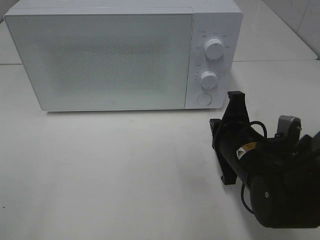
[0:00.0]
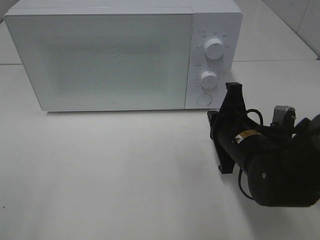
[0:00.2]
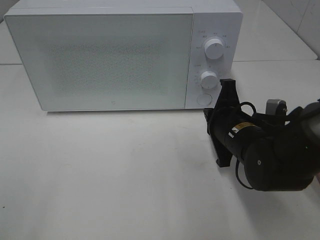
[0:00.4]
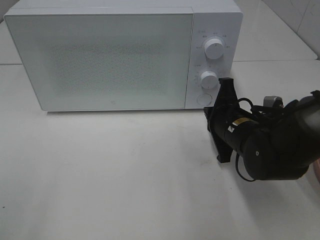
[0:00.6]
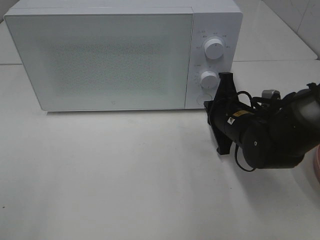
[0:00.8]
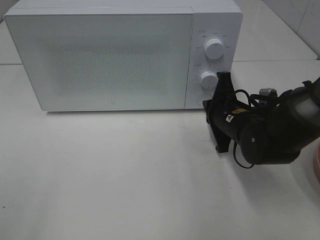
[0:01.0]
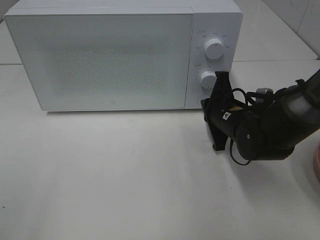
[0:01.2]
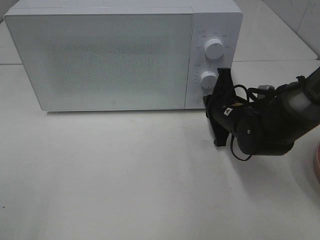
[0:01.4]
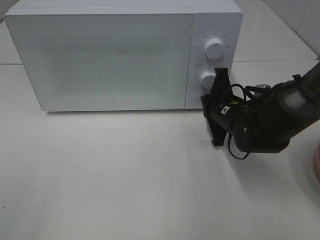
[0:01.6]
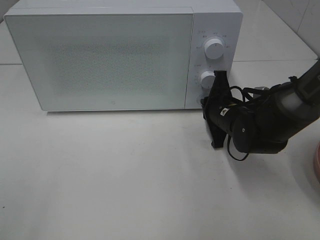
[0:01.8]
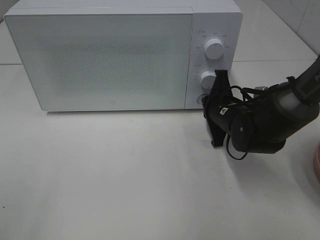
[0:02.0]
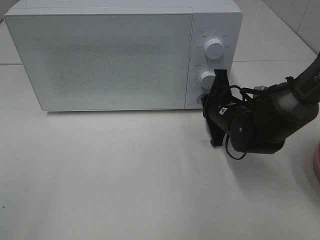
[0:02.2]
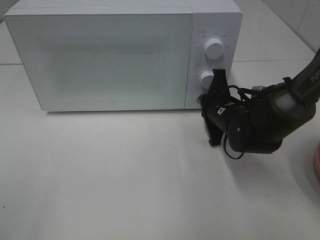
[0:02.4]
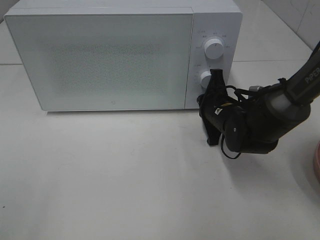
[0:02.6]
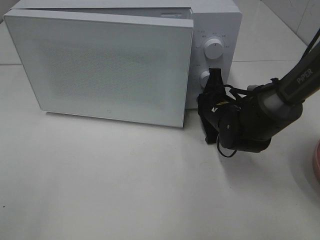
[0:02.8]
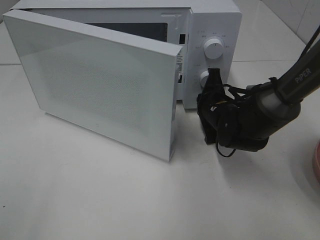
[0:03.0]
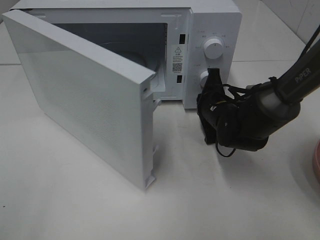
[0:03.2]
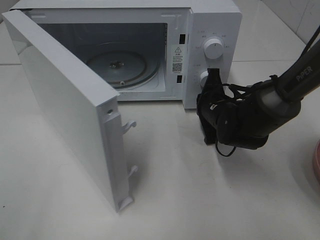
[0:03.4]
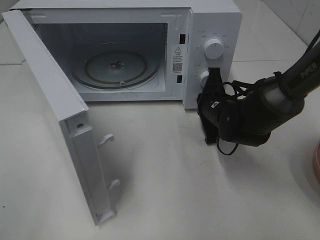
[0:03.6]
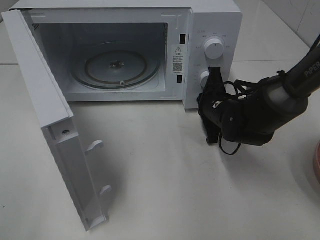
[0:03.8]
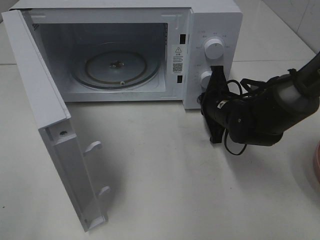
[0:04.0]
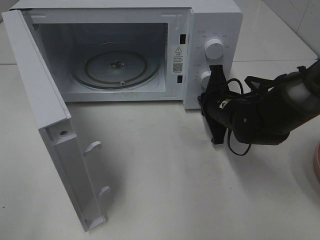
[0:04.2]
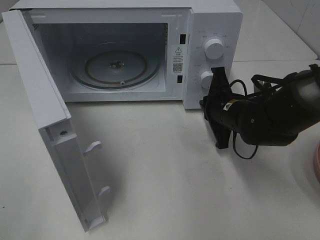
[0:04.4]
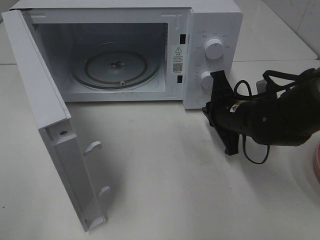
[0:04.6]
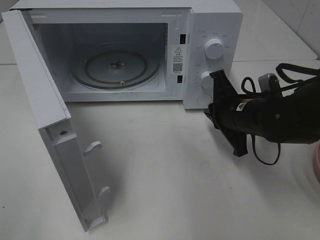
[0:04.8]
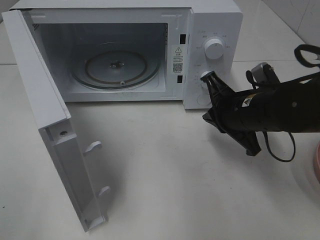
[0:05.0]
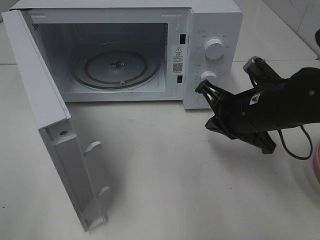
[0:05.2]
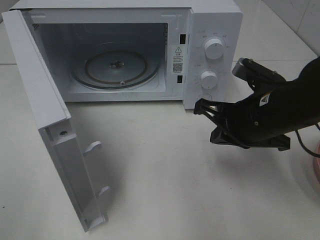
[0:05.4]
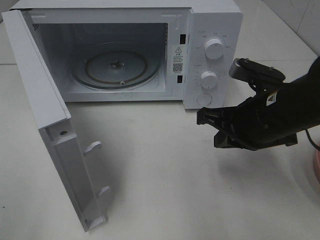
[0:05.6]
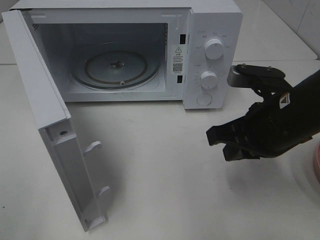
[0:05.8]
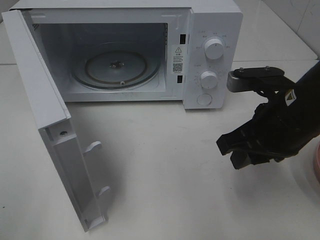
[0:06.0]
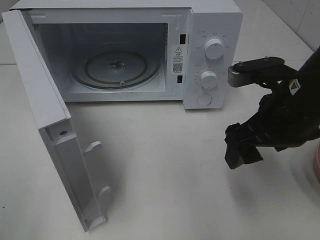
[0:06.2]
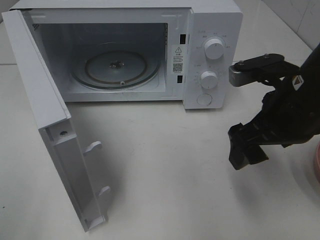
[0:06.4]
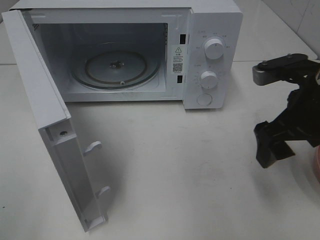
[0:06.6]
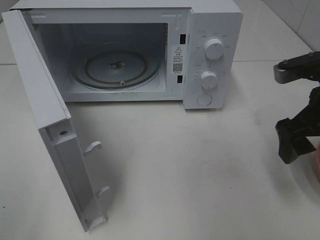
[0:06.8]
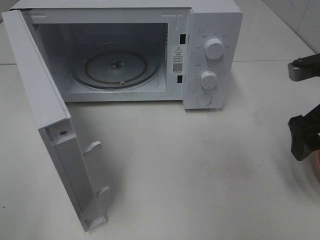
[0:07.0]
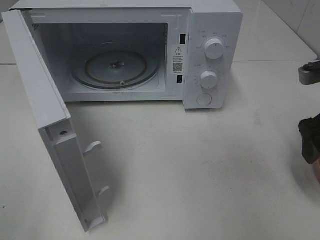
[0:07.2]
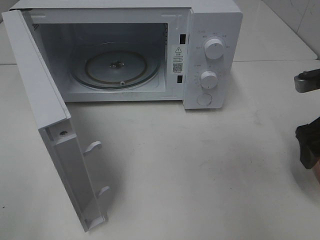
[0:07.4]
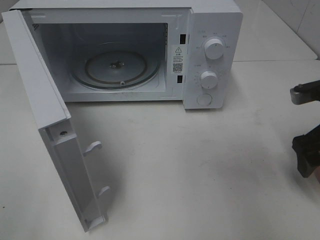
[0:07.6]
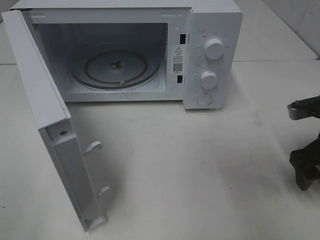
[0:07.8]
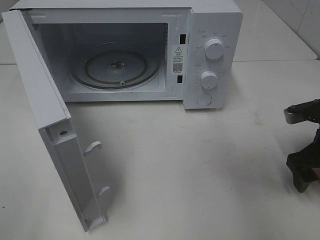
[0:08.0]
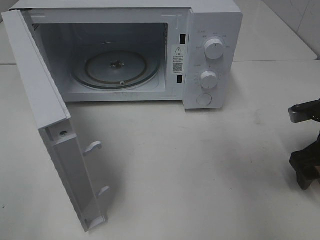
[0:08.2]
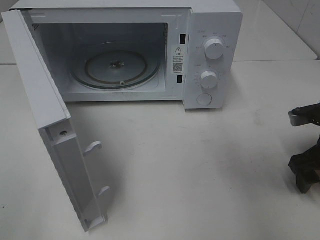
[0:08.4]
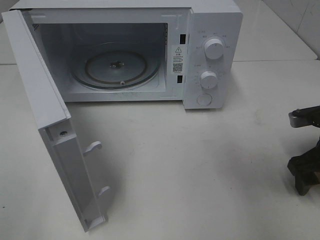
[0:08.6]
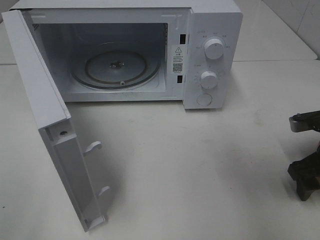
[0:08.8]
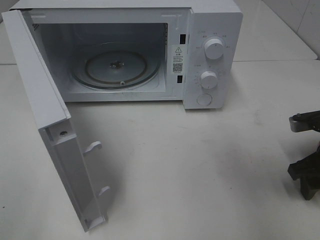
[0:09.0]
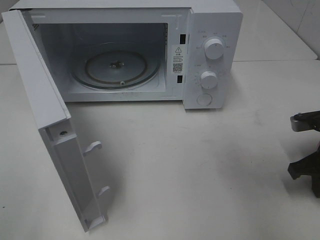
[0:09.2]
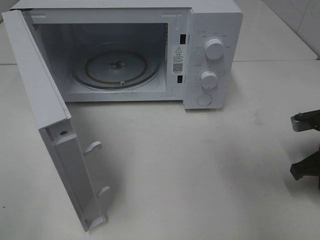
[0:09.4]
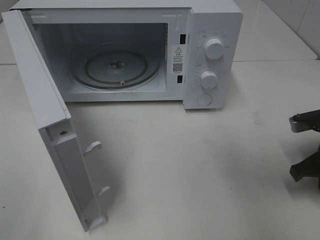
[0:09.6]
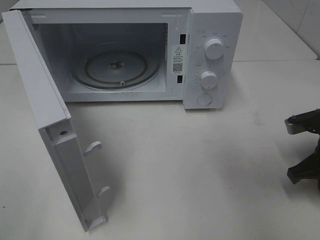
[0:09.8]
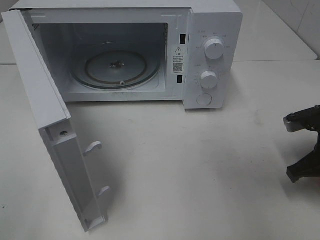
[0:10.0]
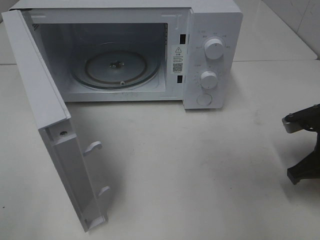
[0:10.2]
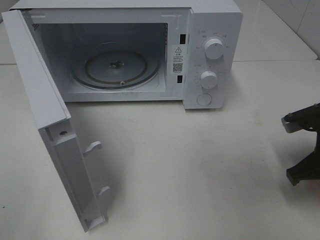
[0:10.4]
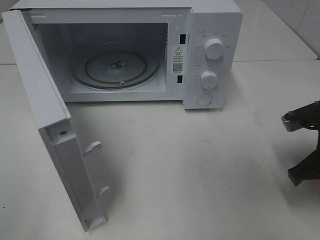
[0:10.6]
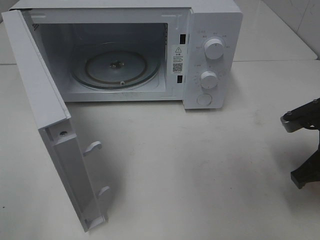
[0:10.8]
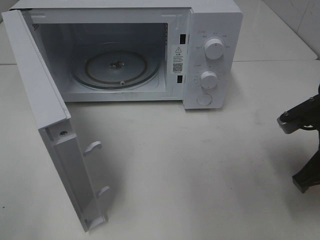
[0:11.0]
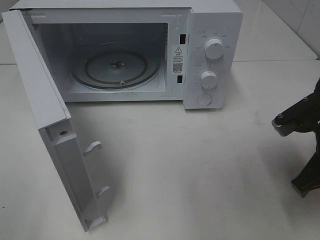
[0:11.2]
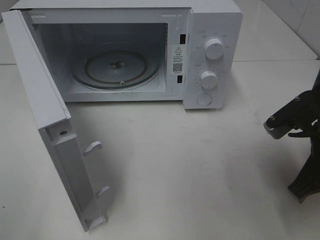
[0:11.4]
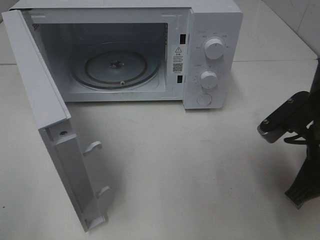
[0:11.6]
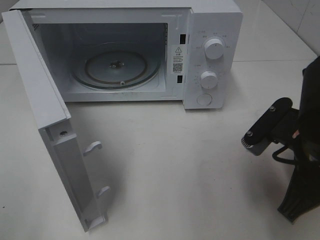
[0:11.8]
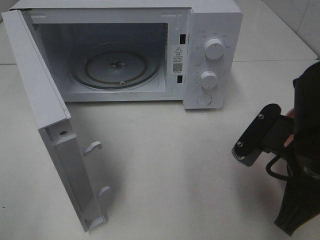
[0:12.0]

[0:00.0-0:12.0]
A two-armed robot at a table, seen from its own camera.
Task of the whole recording: Heat the burger.
Step, 0:00.0 to 0:04.4: Right hand: press the switch.
Step, 0:04.6 to 0:10.0: Right hand: grab the plate with the hamburger.
0:00.0 to 0:01.6: The right gripper moves forward, some 10 cm.
0:01.6 to 0:03.0: The grippers stay close to where they were, moving slightly.
0:04.4 to 0:06.0: The right gripper goes about 15 cm backward and upward, and opens its fingers.
0:06.0 to 0:07.6: The right gripper moves to the right, approximately 10 cm, and opens up.
0:07.6 to 0:09.0: The right gripper moves downward, roughly 5 cm.
0:09.0 to 0:10.4: The right gripper closes its fingers.
0:10.4 to 0:12.0: The right gripper travels to the left, backward and upward by approximately 15 cm.

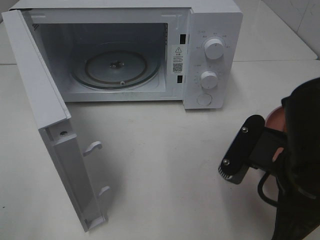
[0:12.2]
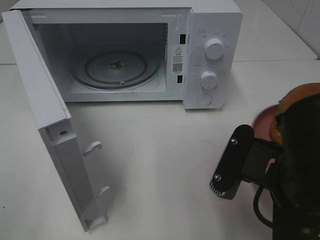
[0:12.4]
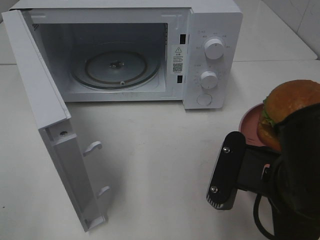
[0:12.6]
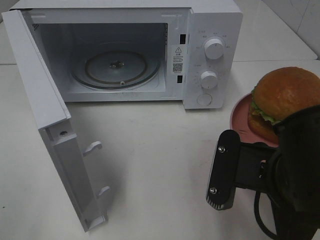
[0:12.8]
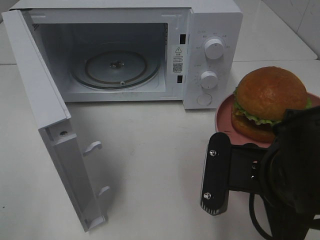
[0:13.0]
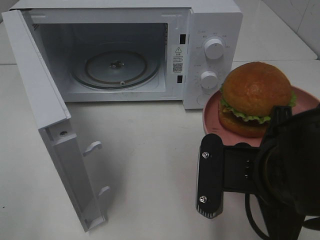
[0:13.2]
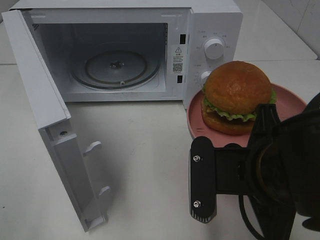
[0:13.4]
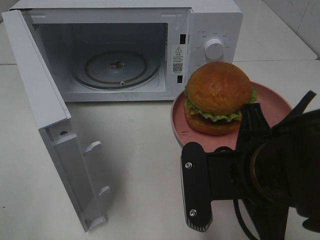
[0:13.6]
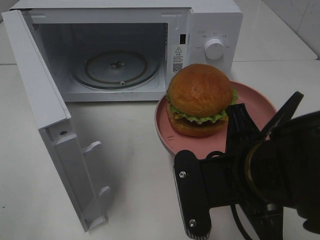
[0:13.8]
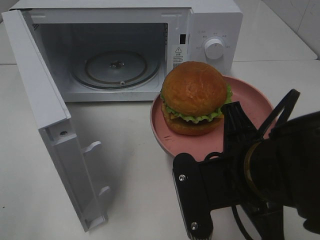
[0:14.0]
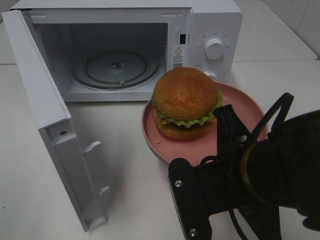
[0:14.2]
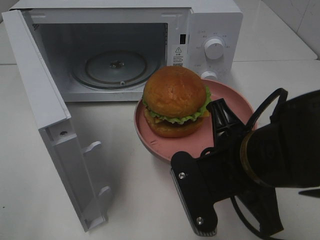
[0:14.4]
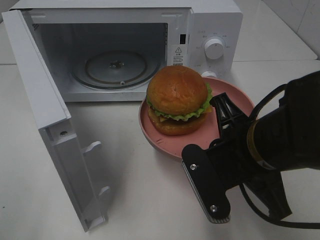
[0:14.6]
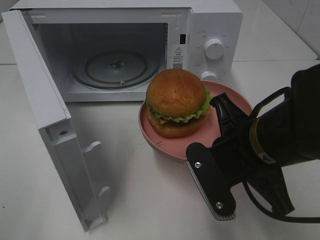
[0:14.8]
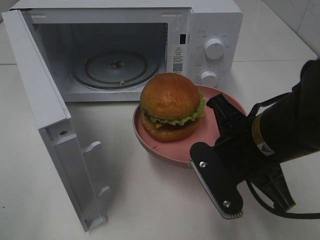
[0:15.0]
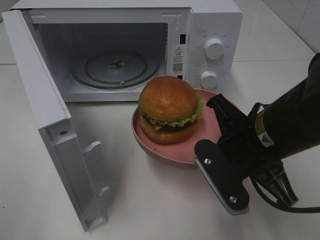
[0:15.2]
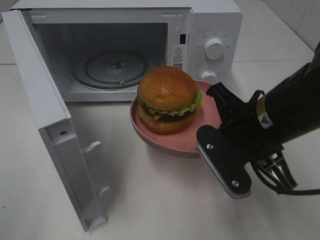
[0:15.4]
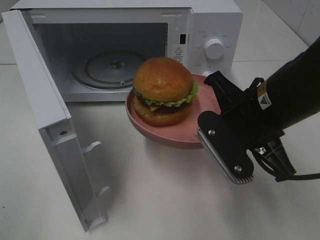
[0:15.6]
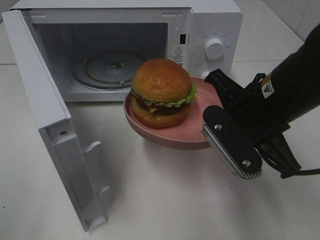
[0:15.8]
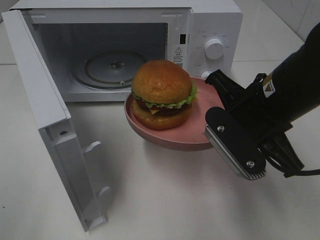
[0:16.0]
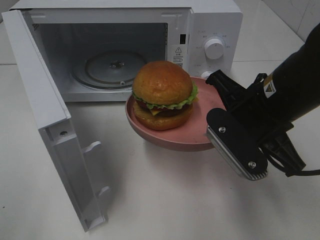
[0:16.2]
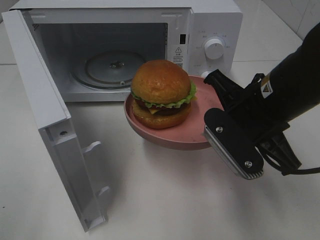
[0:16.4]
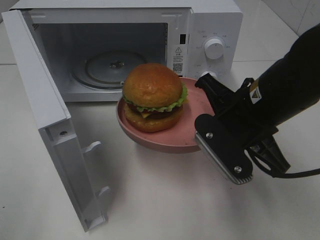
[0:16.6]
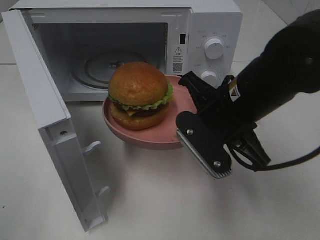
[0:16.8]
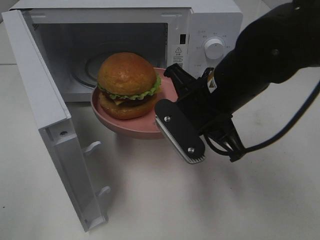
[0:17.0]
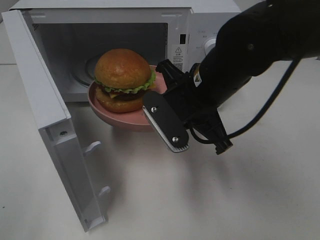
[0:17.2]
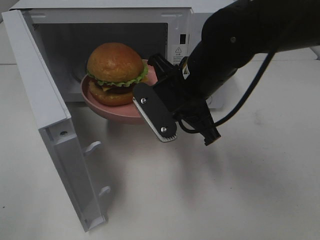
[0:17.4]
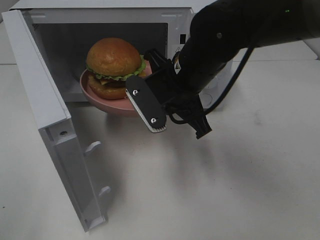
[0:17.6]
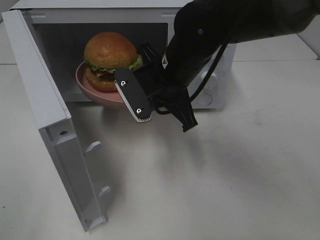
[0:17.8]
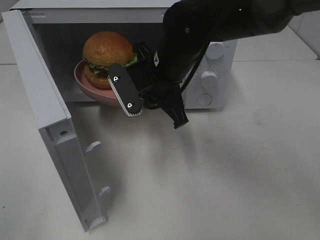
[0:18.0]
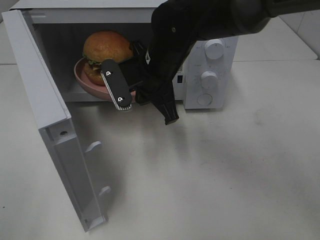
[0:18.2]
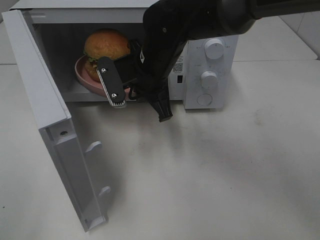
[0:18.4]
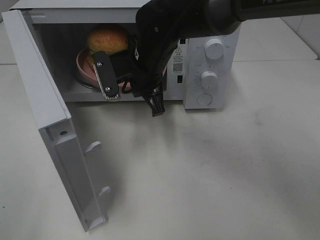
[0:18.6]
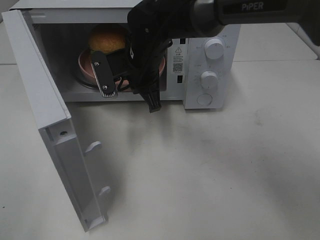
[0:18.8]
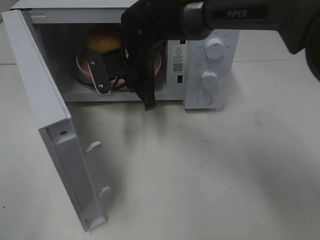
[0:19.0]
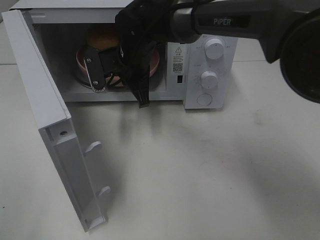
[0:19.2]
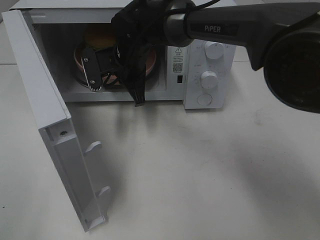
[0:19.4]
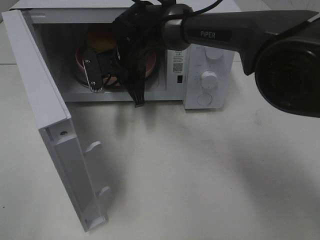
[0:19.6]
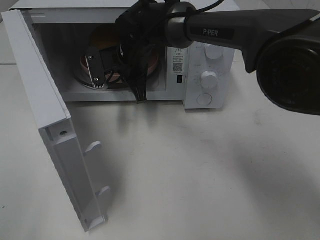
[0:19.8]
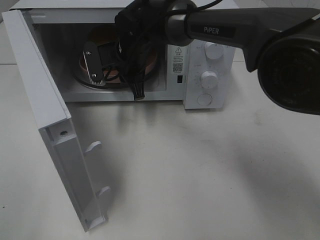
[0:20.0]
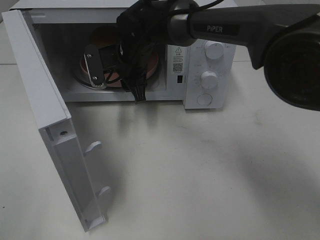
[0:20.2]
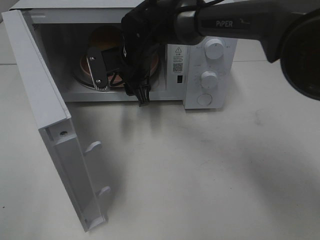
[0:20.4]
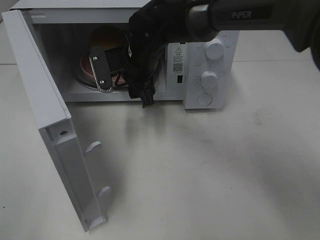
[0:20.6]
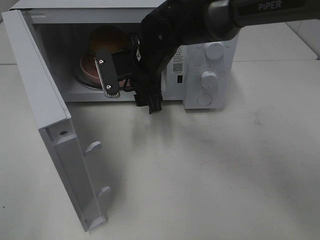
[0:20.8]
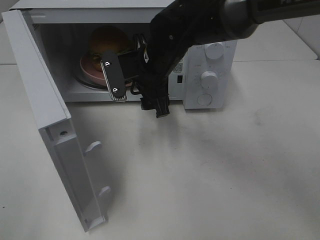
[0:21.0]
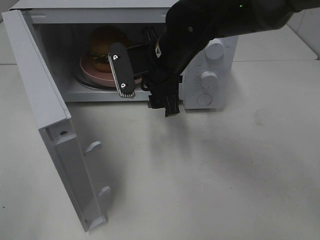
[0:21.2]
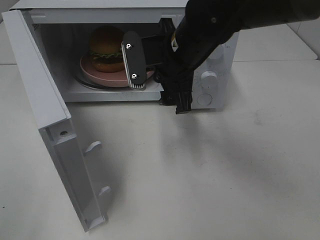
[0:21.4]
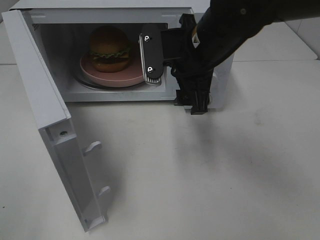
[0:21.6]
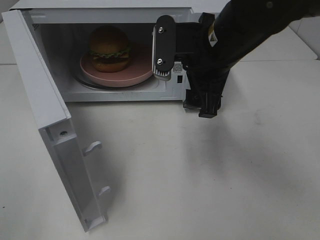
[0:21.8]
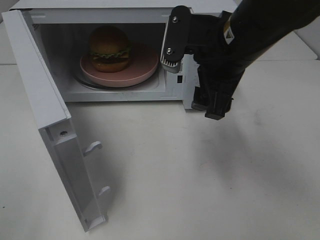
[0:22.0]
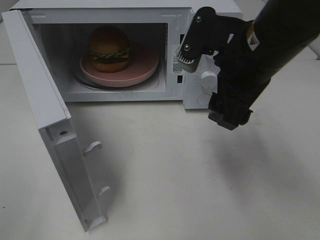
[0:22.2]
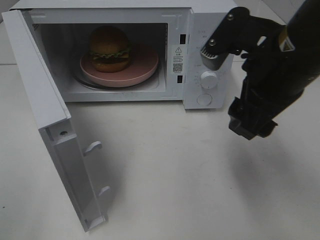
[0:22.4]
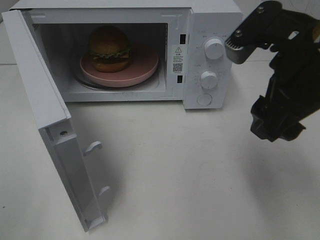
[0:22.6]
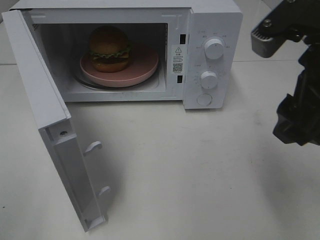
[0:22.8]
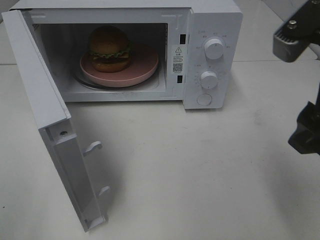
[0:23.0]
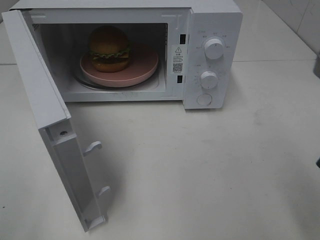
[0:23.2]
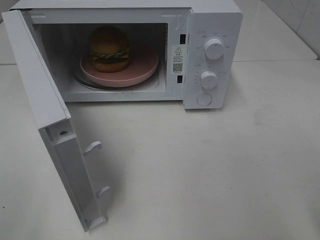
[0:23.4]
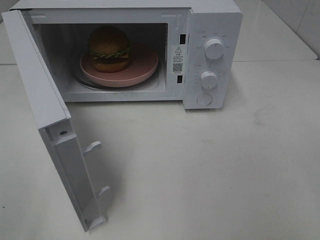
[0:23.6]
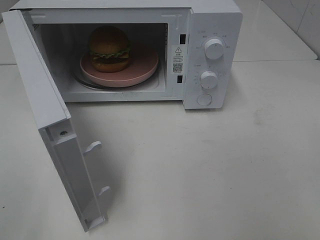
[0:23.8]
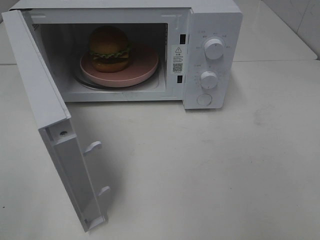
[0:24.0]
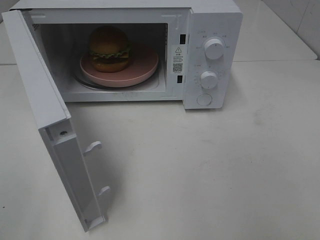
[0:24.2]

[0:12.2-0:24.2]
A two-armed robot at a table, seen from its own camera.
Task of the whole recording: Heat the burger.
Step, 0:12.2 to 0:20.4: Right hand: place the plate in the microwave.
0:13.8 to 0:15.2: The right gripper is displaced forward by roughly 5 cm.
0:15.2 to 0:16.6: There are only small adjustments of the grippers.
0:16.6 to 0:18.2: The right gripper travels to the left and forward by approximately 15 cm.
0:18.2 to 0:19.8: The right gripper heads forward, covering about 10 cm.
0:19.8 to 0:21.2: The right gripper heads backward and to the right, covering some 10 cm, and opens.
0:21.2 to 0:22.6: The right gripper travels to the right, backward and upward by about 20 cm.
0:22.6 to 0:24.2: The right gripper moves backward and to the right, roughly 20 cm.
